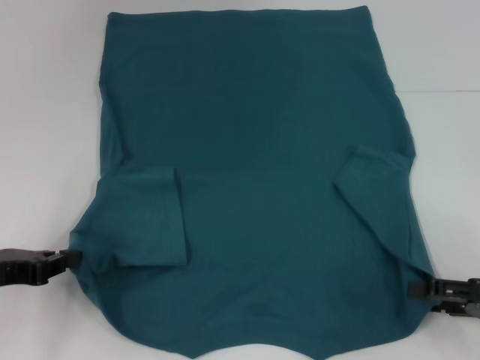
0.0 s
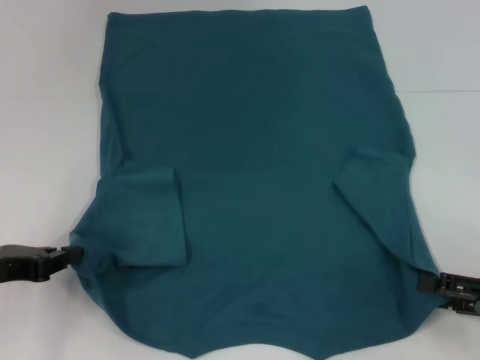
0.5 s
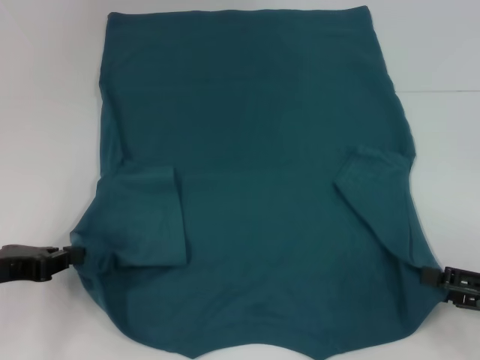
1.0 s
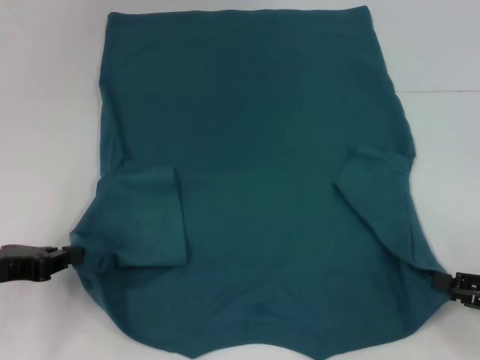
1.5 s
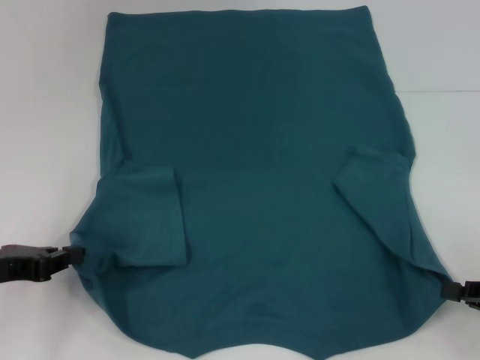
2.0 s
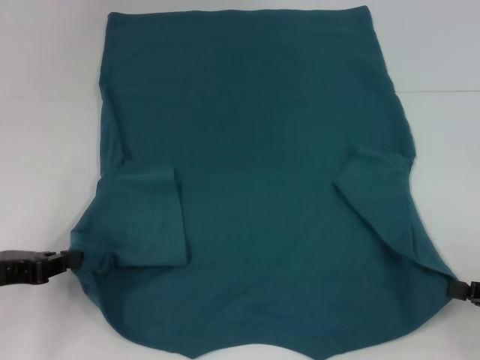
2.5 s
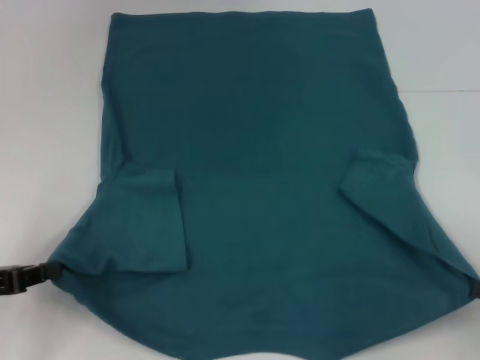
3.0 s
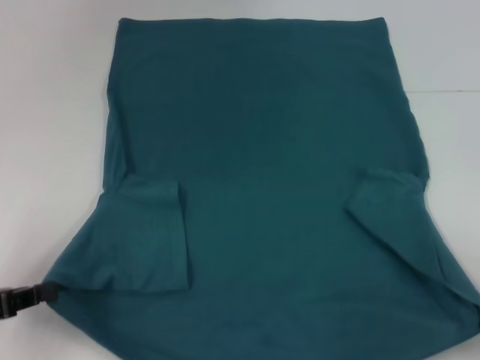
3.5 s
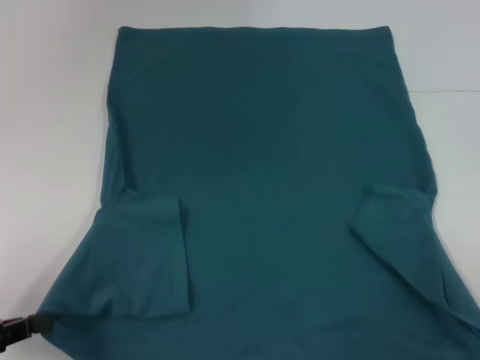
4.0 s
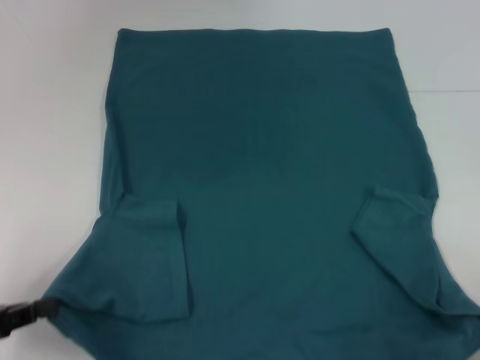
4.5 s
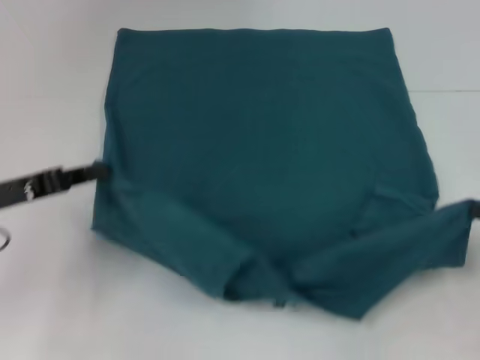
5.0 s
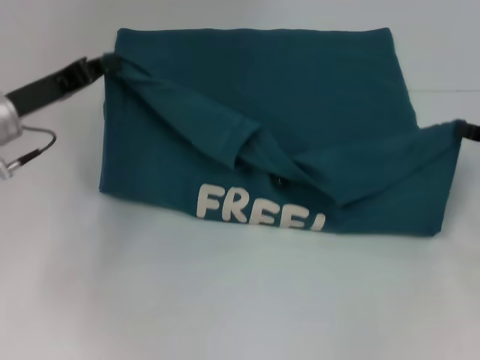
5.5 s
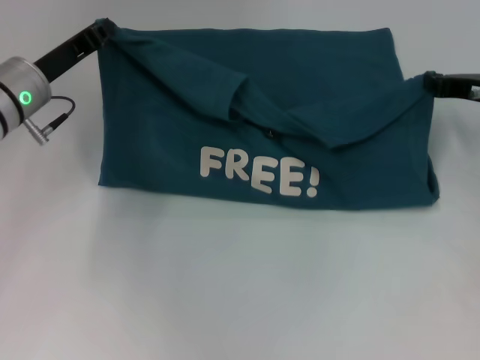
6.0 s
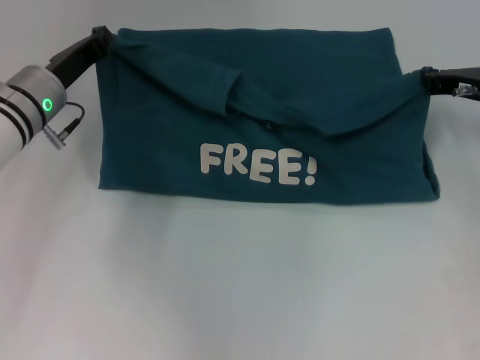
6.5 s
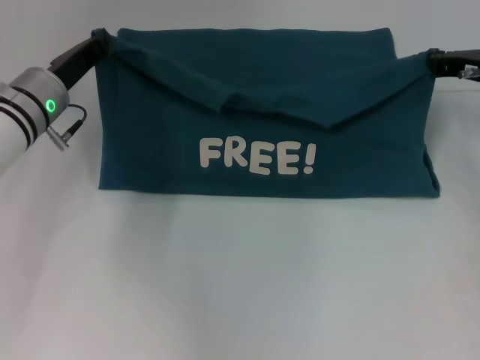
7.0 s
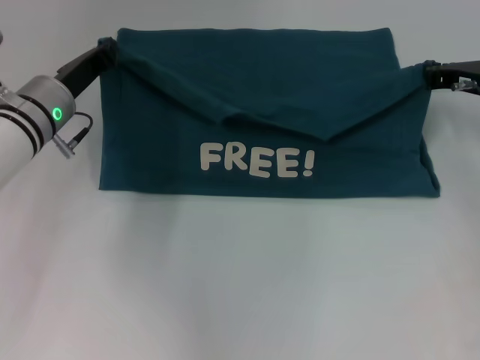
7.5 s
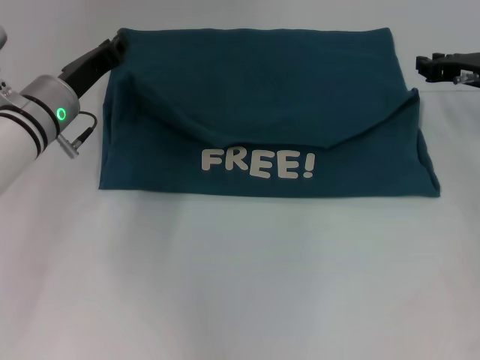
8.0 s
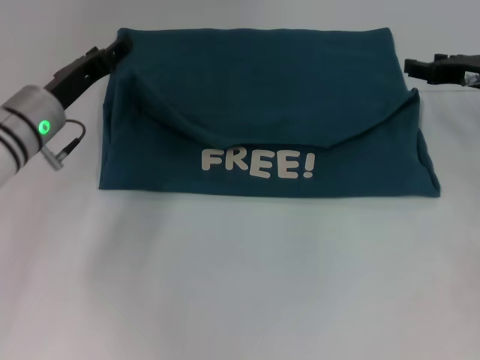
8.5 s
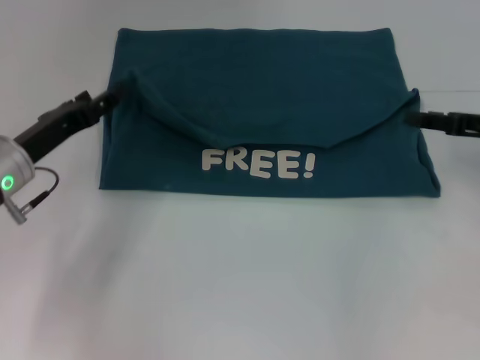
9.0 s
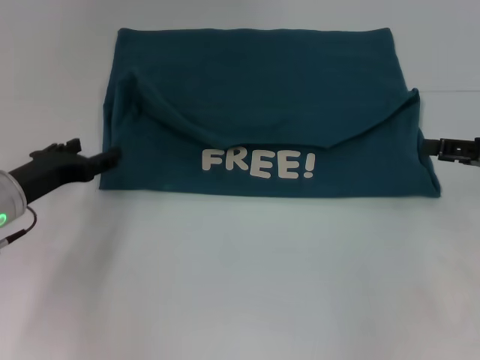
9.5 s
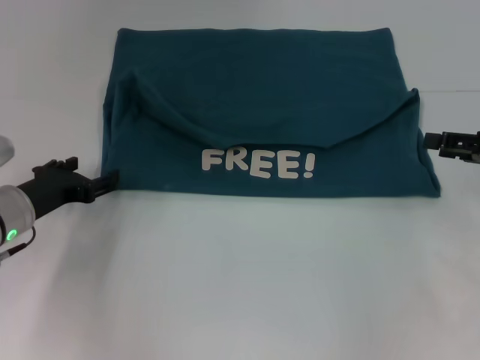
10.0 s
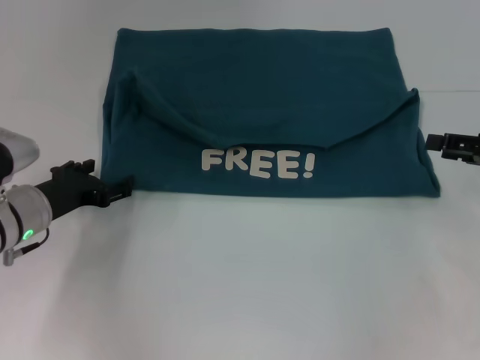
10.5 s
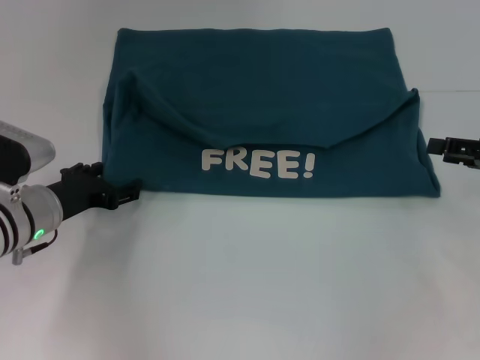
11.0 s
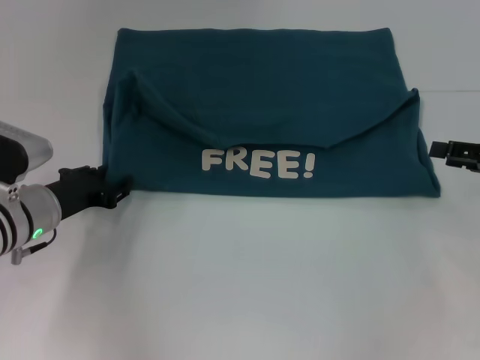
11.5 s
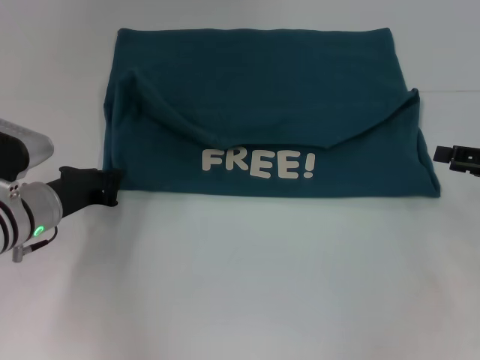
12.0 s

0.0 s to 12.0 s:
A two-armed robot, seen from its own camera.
Step, 2.0 to 7.5 s: Fold the clothes to the left.
Step, 2.0 to 7.5 s: Fold the clothes to the right.
0.0 to 2.0 s: The right gripper closes.
2.0 to 4.0 s: The grippers both shift backward by about 10 cm.
4.0 to 6.0 s: The left gripper shifts approximately 25 cm forward and to the right, while the right gripper goes roughly 30 cm forward.
6.0 to 8.0 s: There are only small adjustments of the grippers.
8.0 to 10.0 s: The right gripper moves backward and to the right, about 10 cm, and opens, while the left gripper travels backward, downward and to the left by some 10 cm, and opens up.
10.0 to 12.0 s: The left gripper closes up.

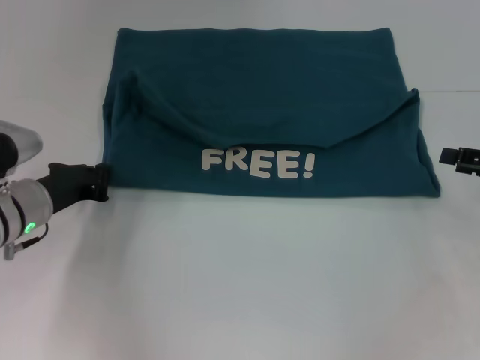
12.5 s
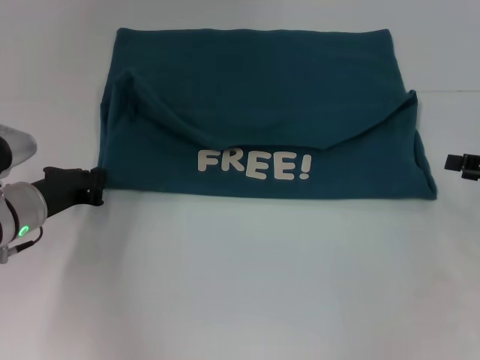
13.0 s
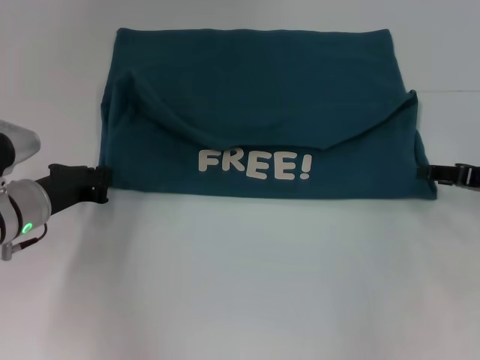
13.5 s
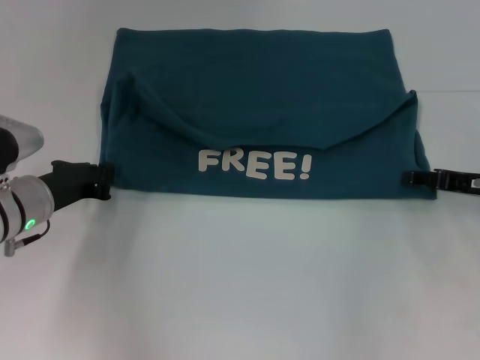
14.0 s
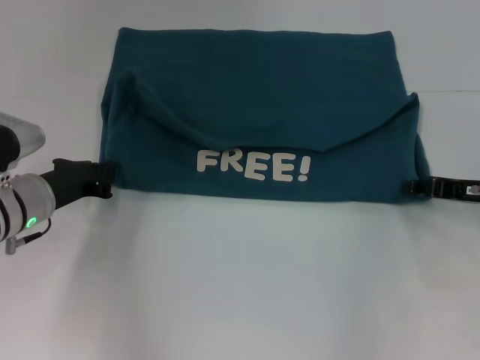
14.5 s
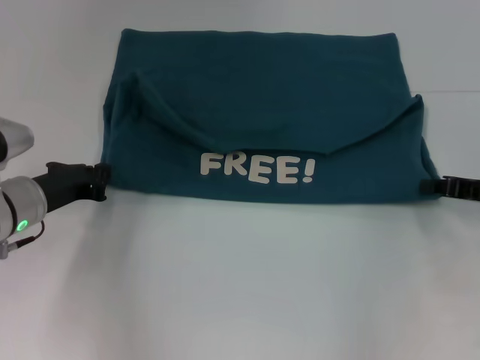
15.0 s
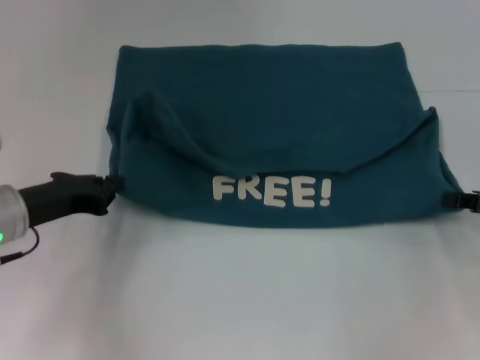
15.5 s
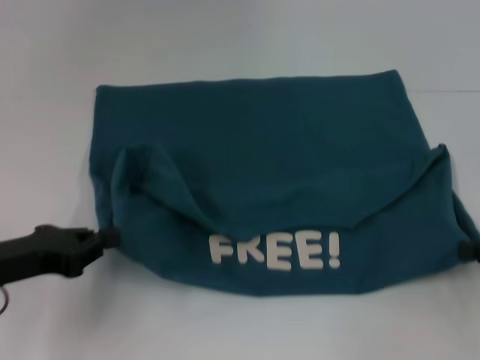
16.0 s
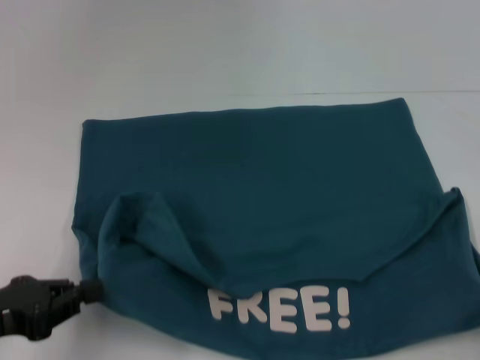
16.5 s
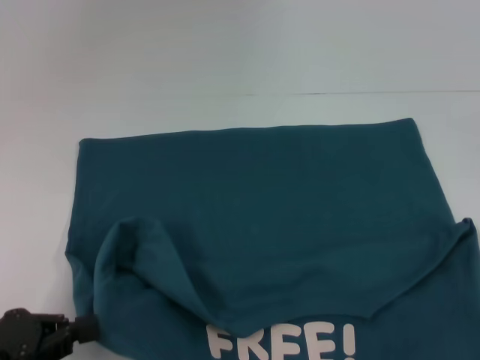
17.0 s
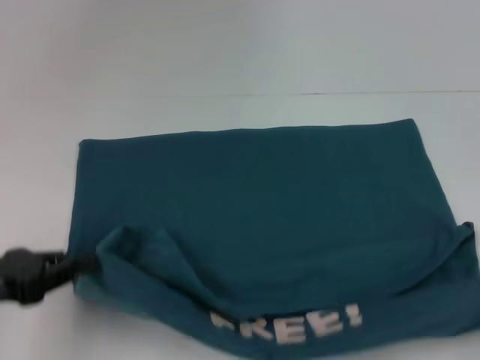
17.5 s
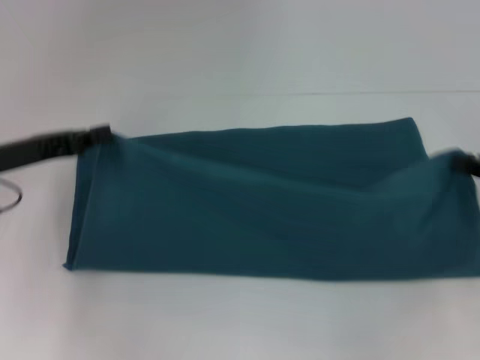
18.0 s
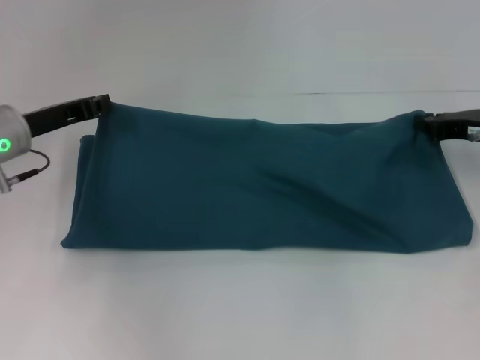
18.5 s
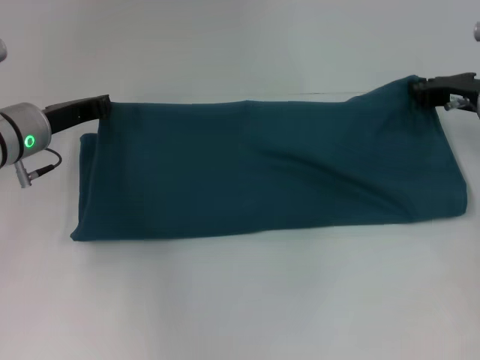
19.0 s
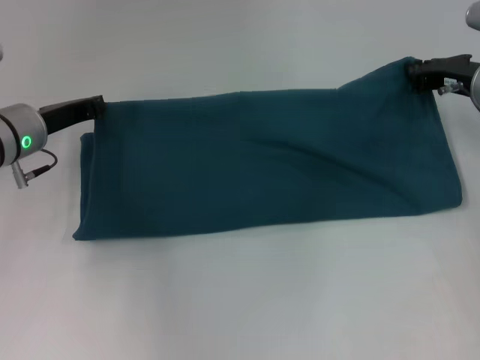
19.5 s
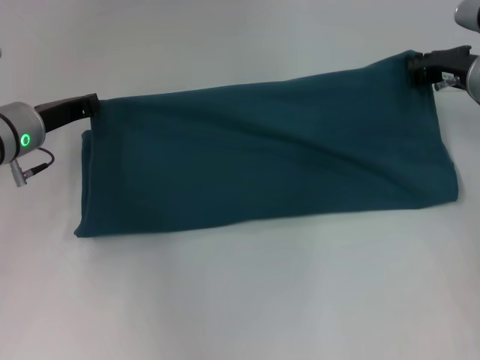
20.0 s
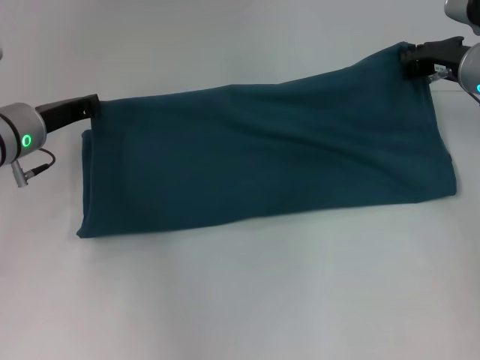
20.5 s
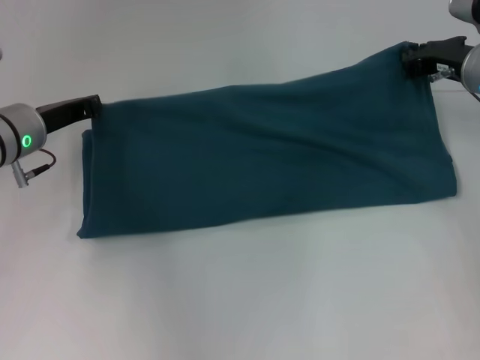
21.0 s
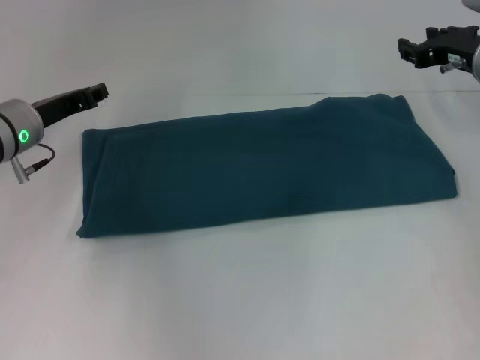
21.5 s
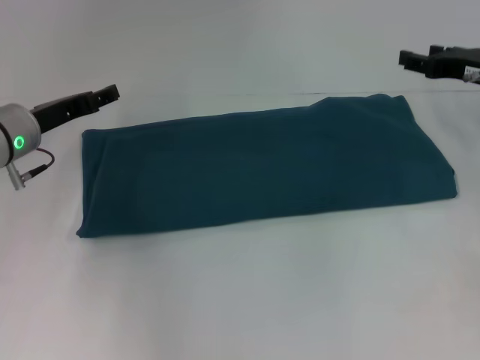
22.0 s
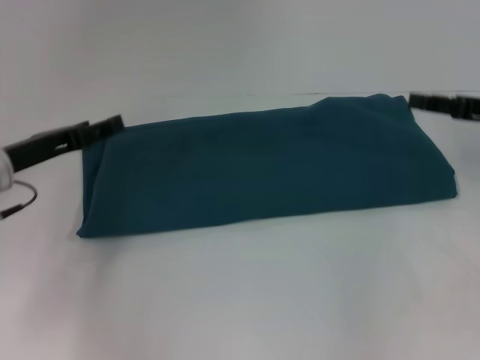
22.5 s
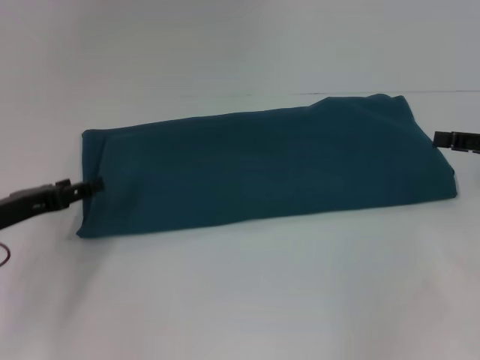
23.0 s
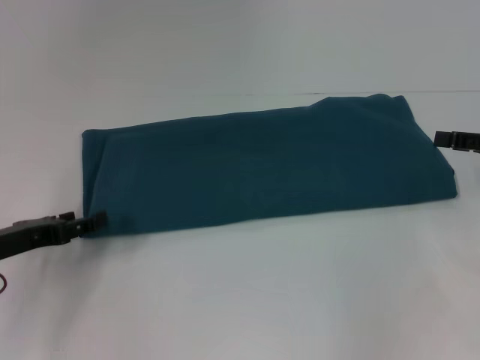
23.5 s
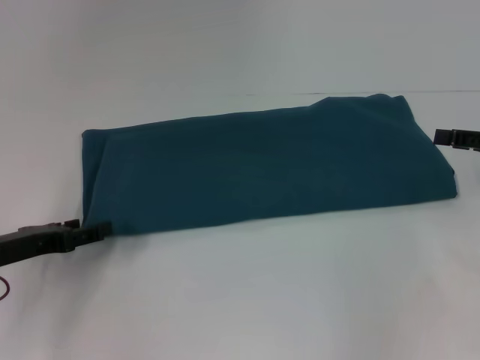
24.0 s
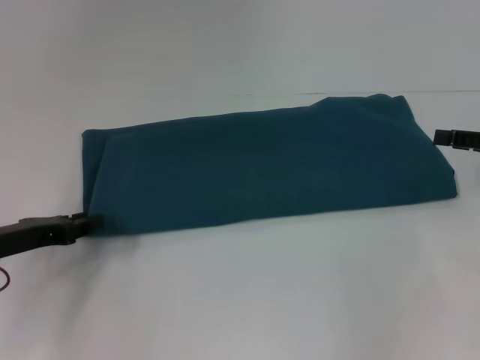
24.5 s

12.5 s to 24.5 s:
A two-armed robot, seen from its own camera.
Step, 12.5 to 17.0 s: Pull the clothes with your left hand.
Step, 12.5 to 17.0 s: Pull the clothes with your right hand.
Step, 17.5 to 21.0 s: Fold the clothes to the right.
12.5 to 14.5 s: The right gripper travels to the left by approximately 5 cm.
14.5 to 16.5 s: The left gripper heads backward, covering approximately 15 cm. The right gripper is displaced backward and to the right by approximately 15 cm, and closes.
16.5 to 18.5 s: The grippers both shift forward by roughly 20 cm.
18.5 to 20.5 s: The right gripper travels forward and to the left by roughly 10 cm.
20.5 to 22.5 s: The left gripper travels backward by approximately 5 cm, and opens up. The right gripper travels backward and to the right by roughly 10 cm, and opens up.
22.5 to 24.5 s: The left gripper shifts roughly 5 cm backward.

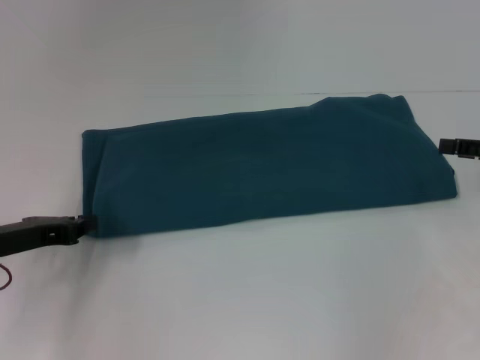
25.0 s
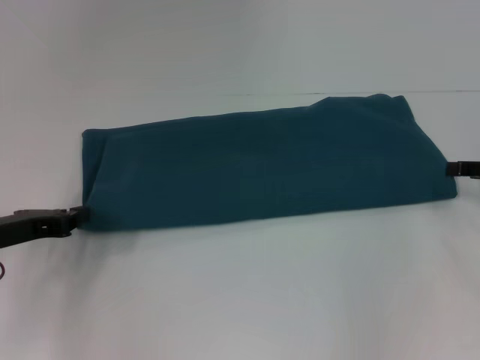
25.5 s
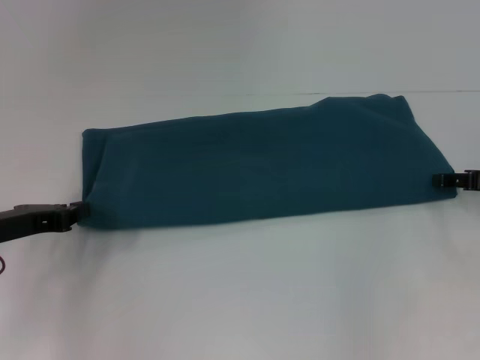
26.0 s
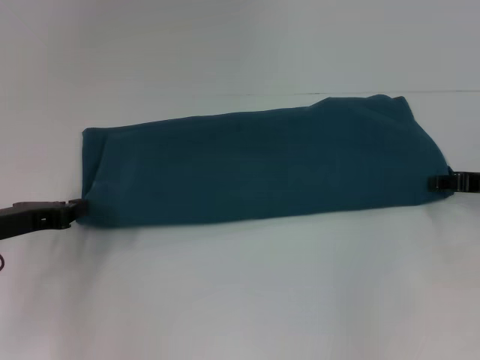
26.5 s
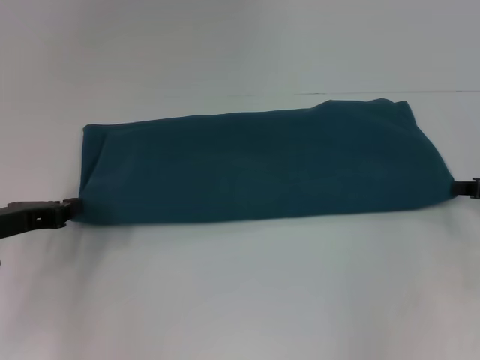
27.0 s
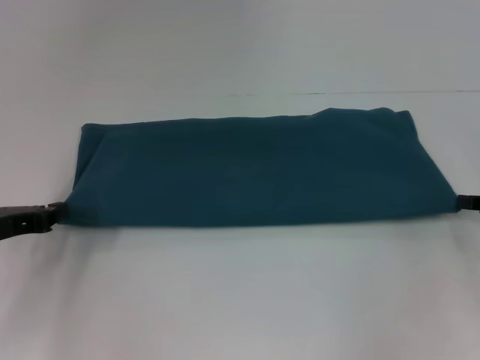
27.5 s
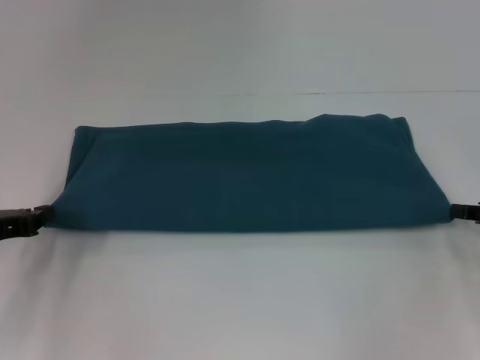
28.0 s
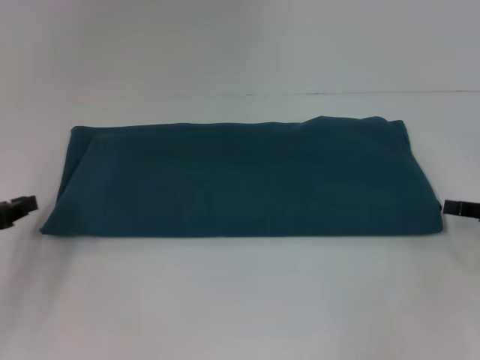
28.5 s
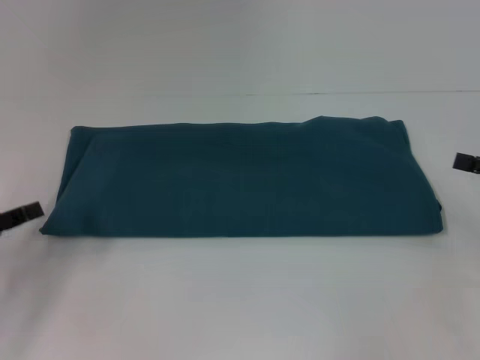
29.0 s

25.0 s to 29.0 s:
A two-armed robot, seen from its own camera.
25.0 to 27.0 s: The right gripper closes up.
27.0 to 29.0 s: The left gripper goes about 10 cm backward and to the left, and opens. The right gripper changes place by some 5 cm, and opens up.
